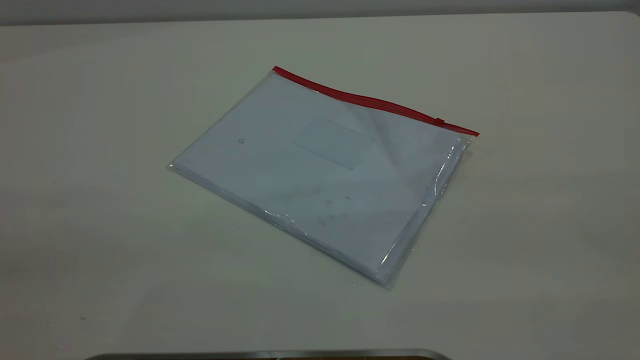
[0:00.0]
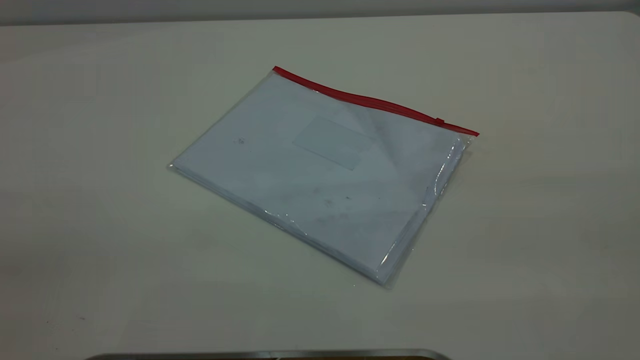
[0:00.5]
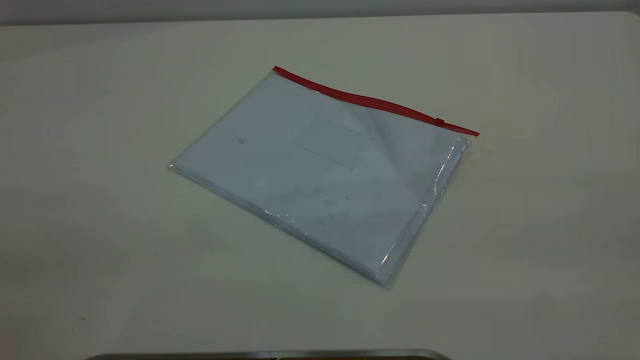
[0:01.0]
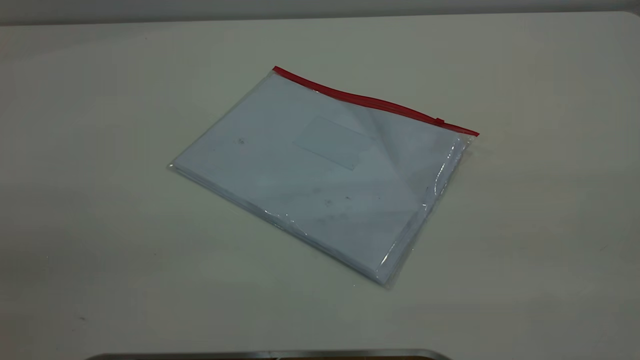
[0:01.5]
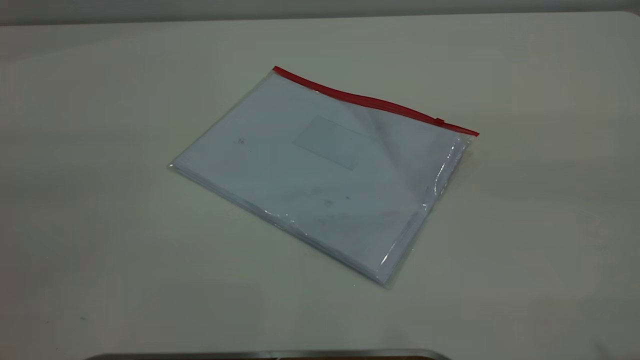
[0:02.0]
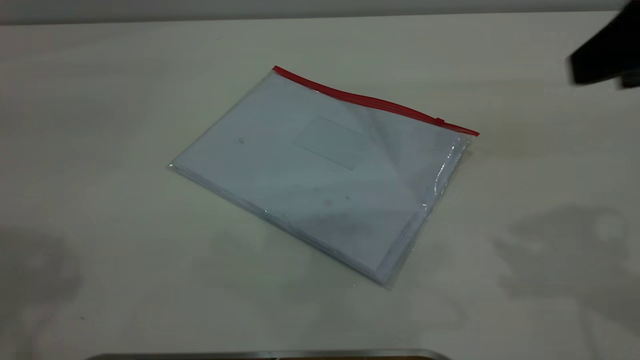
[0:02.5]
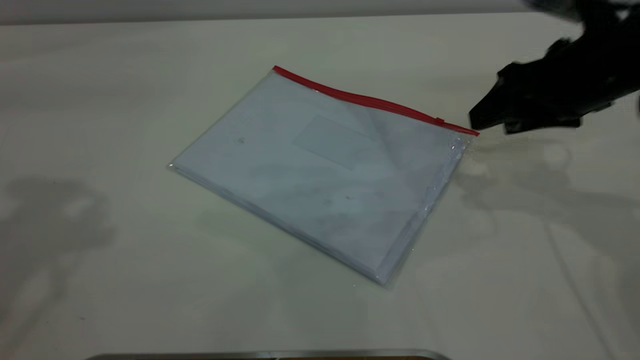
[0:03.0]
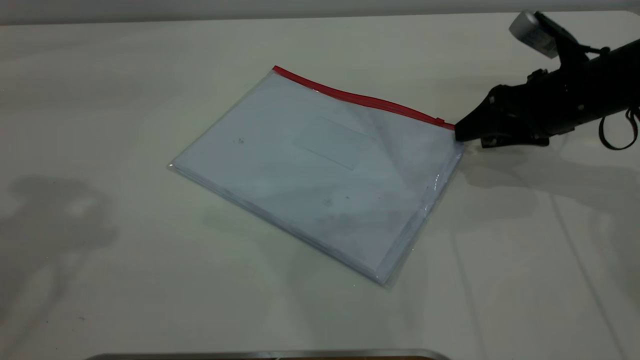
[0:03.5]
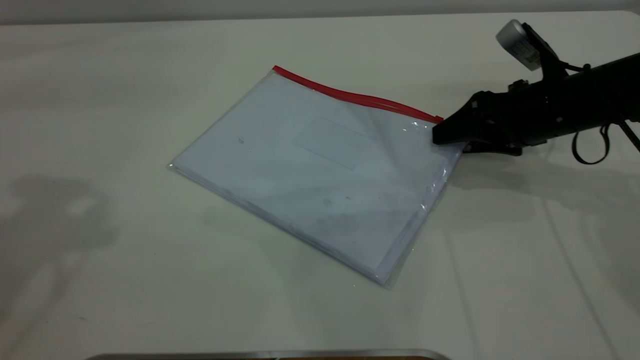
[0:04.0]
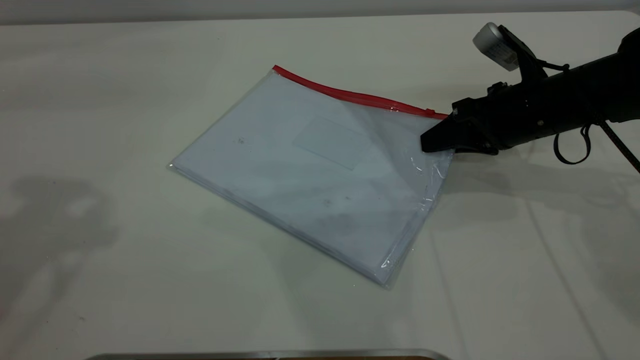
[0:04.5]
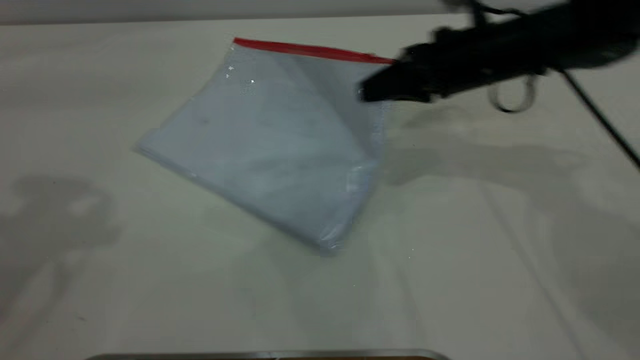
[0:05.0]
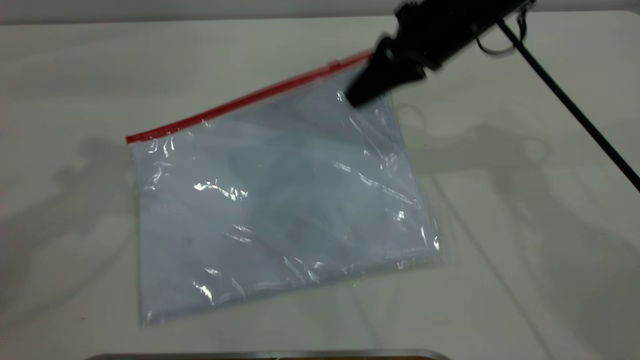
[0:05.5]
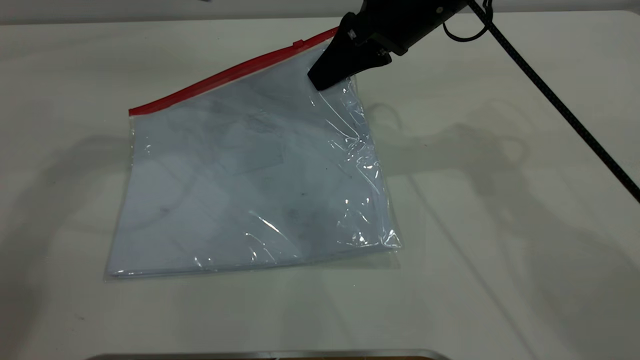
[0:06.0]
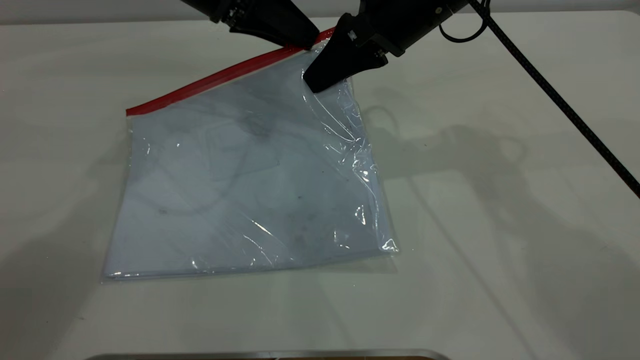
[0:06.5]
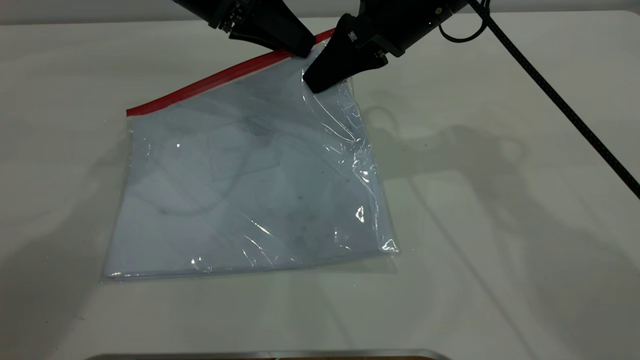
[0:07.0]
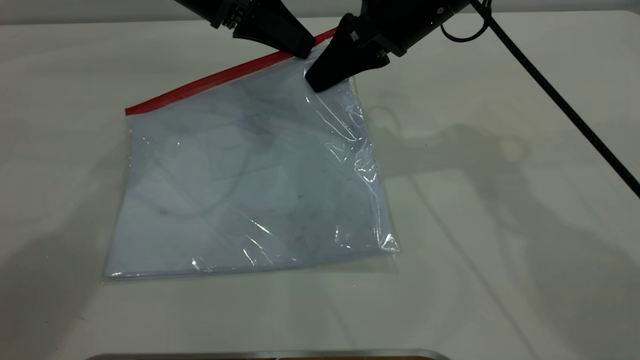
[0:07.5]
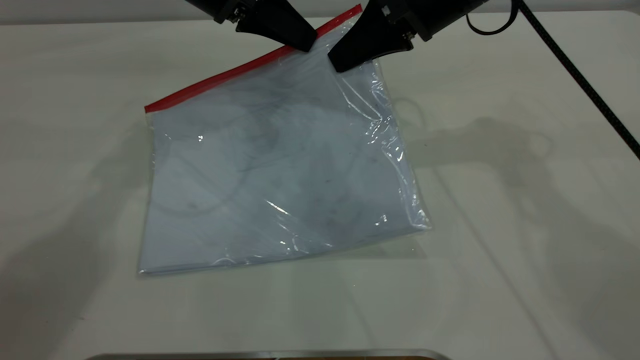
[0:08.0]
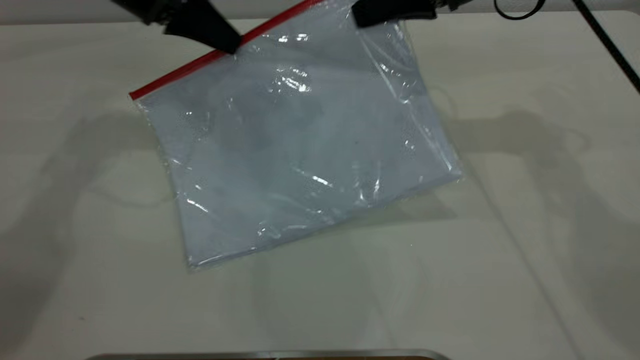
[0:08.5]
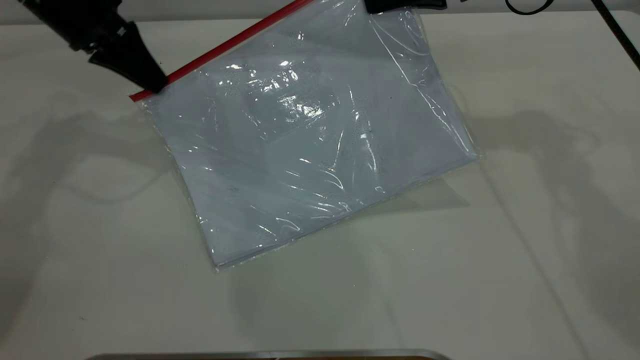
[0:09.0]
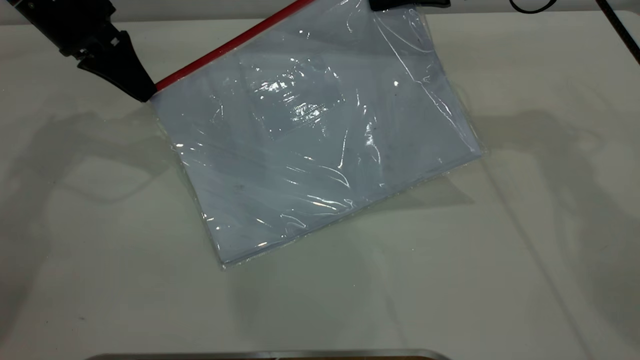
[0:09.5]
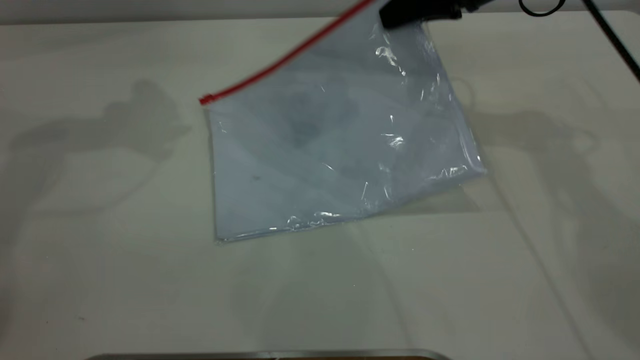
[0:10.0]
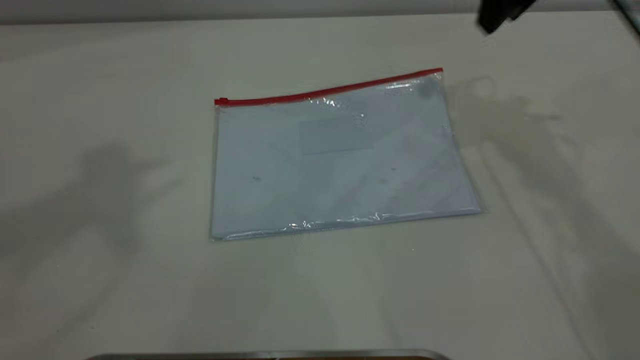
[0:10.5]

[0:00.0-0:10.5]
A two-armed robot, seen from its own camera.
Step, 0:00.0 to 0:05.5: Pick up the transparent plastic bag with the right gripper.
Step, 0:06.0 to 0:09.5: Pulling up the zipper on the transparent plastic bag with the left gripper to close it.
0:02.0 to 0:04.0: The right gripper heads downward and forward, covering approximately 40 cm.
0:04.0 to 0:06.5: The left gripper moves downward, forward and to the right, about 30 cm. The right gripper moves to the left and upward, about 20 cm, and closes its fingers.
0:06.5 to 0:08.5: The left gripper moves to the left, roughly 10 cm, and closes up. The right gripper goes approximately 5 cm to the right.
0:08.5 to 0:10.5: The left gripper shifts roughly 40 cm upward and backward, and opens its fingers; the right gripper is displaced upward by approximately 5 cm, and opens its fingers.
